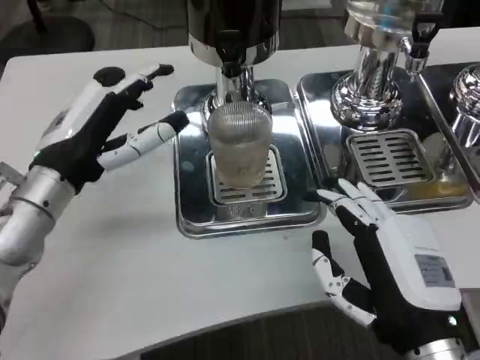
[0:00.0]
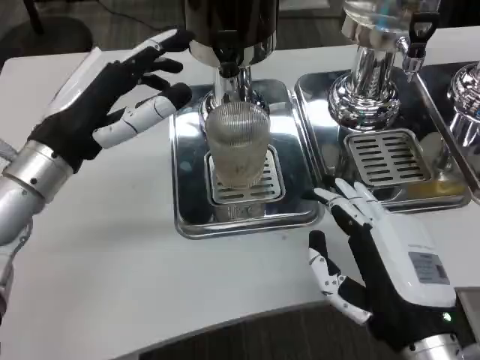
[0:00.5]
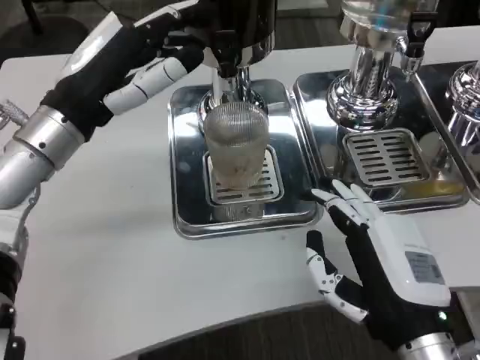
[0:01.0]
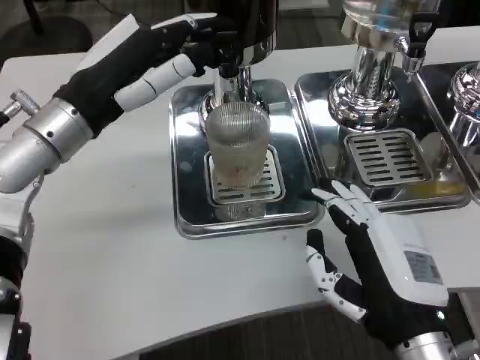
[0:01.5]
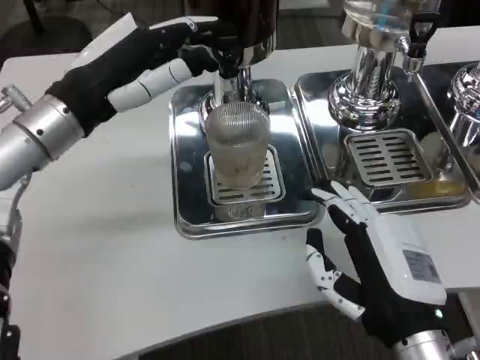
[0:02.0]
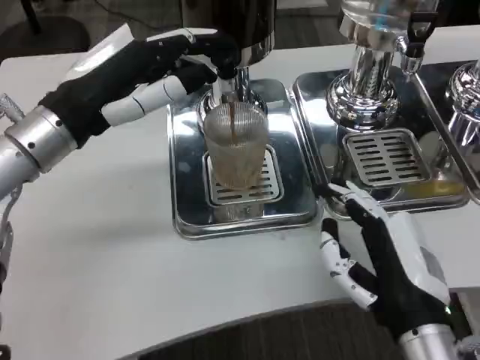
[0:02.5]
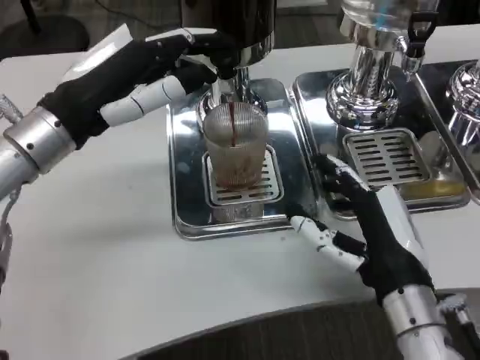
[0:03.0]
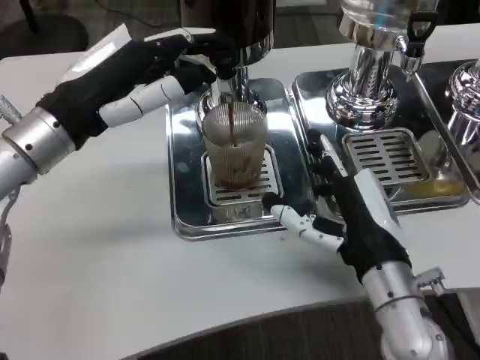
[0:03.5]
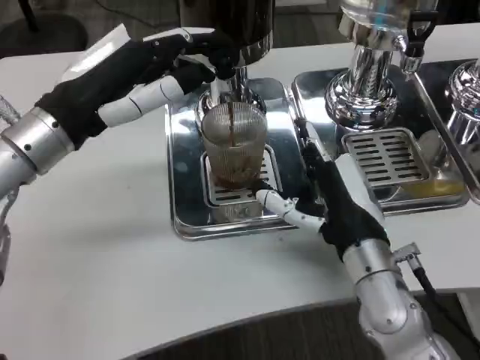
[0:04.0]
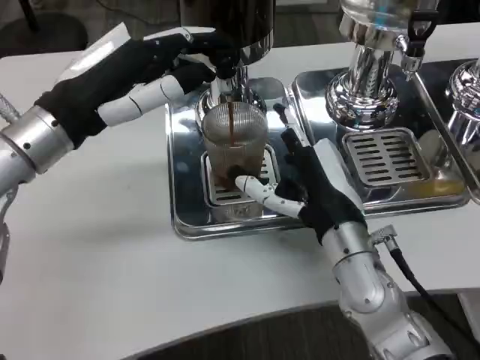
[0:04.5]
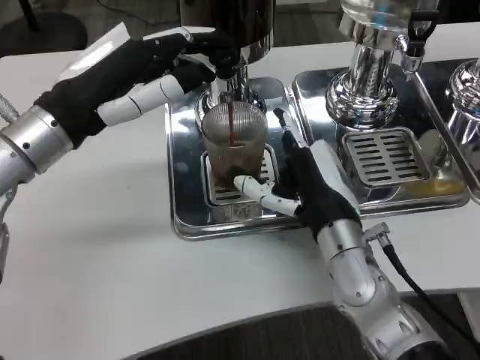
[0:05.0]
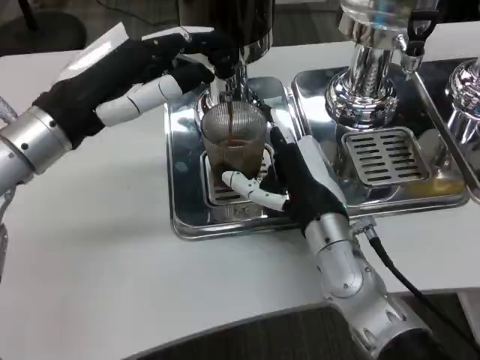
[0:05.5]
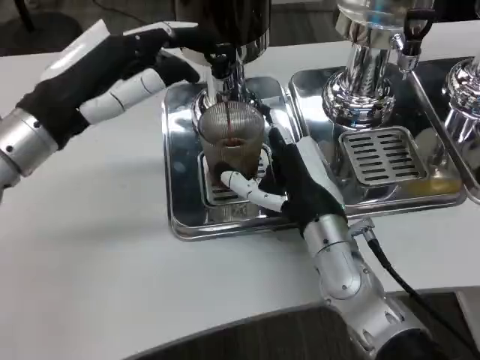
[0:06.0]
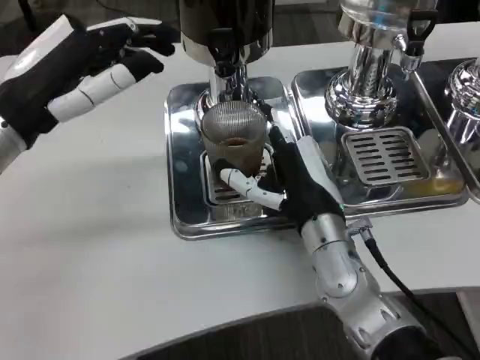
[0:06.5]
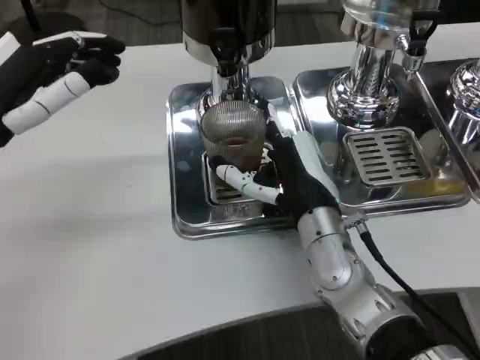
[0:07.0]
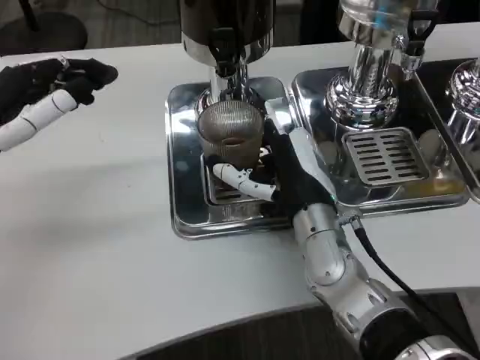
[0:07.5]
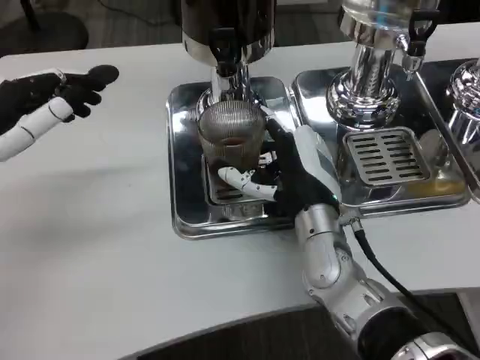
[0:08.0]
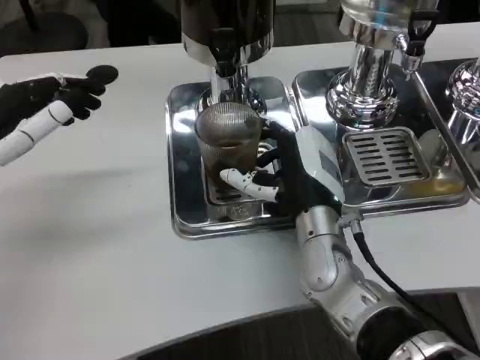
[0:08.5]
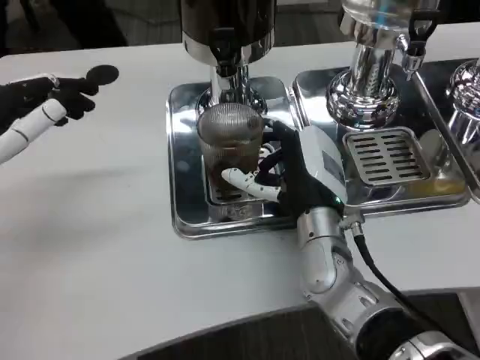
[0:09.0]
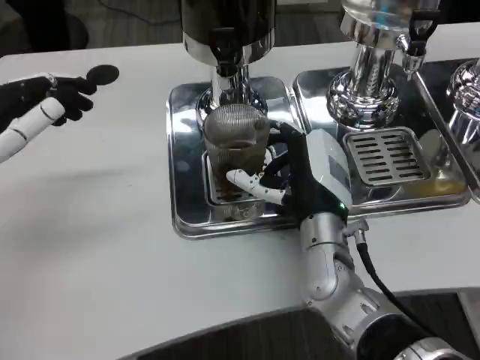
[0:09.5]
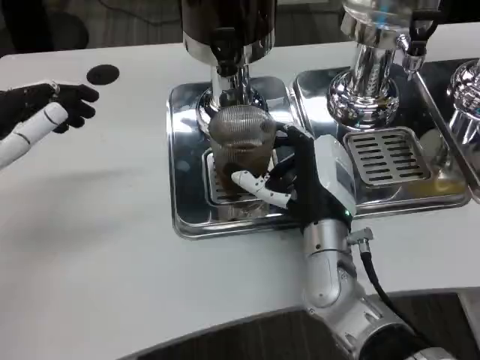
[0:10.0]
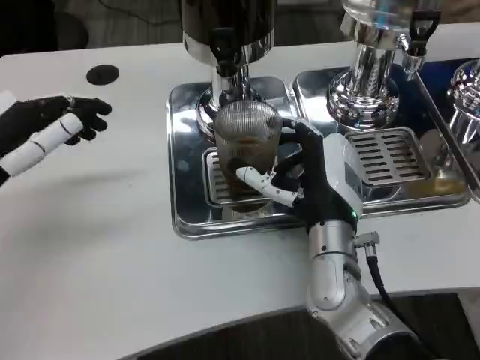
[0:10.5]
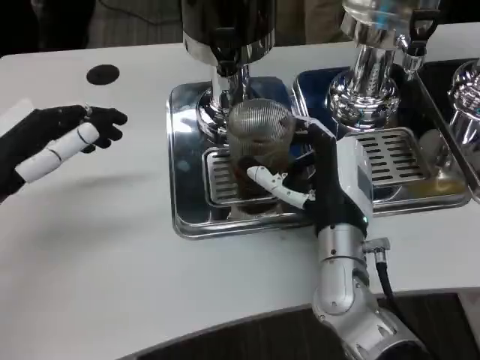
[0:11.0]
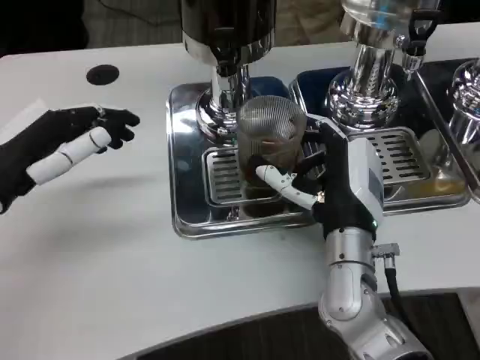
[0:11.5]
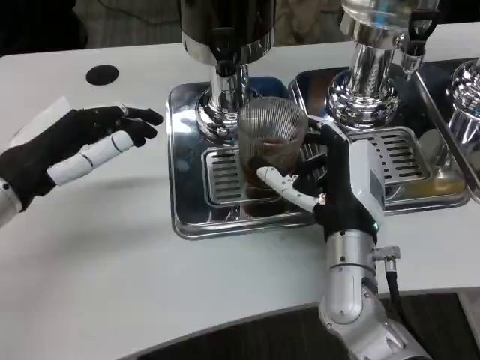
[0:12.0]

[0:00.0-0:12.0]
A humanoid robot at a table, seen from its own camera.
Task of the whole recording: Grasp the cup under the faucet to collect the drink, then remove the cup.
0:00.0 to 0:02.0: The left hand goes roughly 5 cm upward.
0:02.0 to 0:04.0: The right hand travels forward by some 10 cm.
0:06.0 to 0:08.0: The left hand heads to the left, covering approximately 5 cm.
0:08.0 to 0:10.0: The hands move only a little.

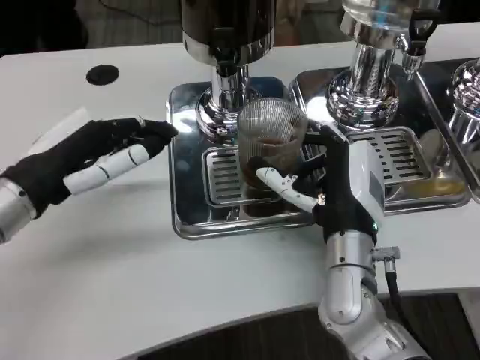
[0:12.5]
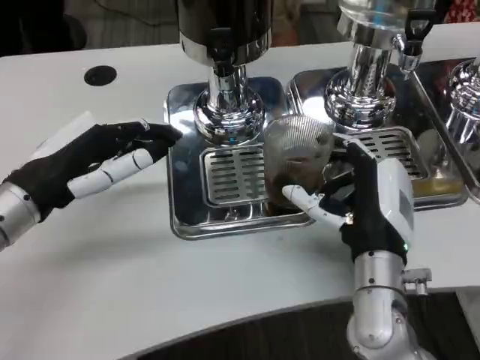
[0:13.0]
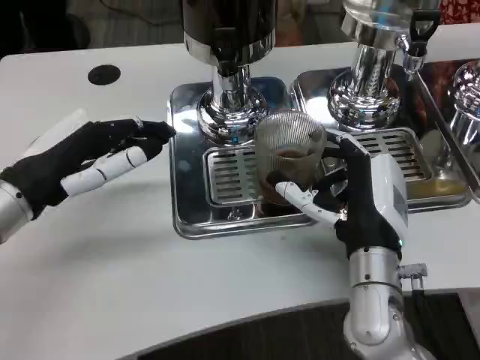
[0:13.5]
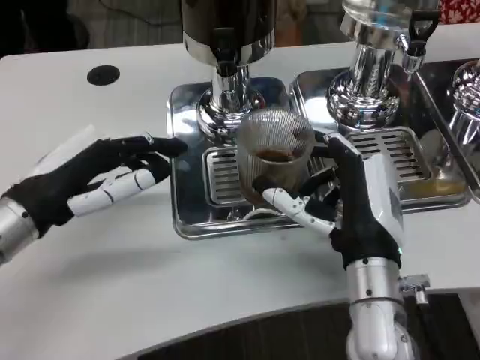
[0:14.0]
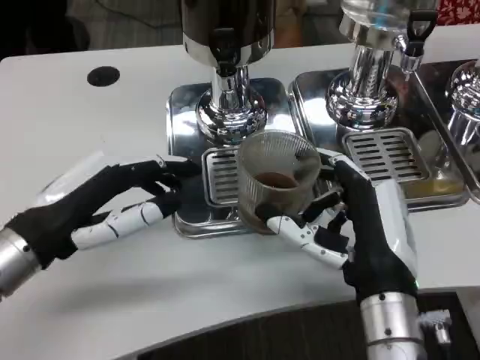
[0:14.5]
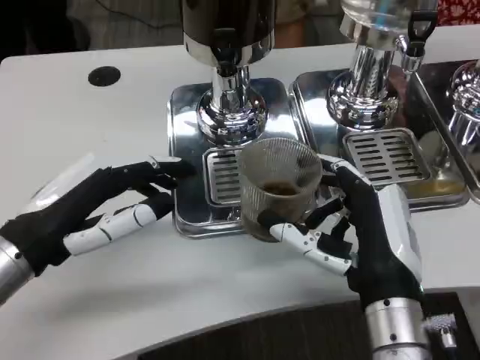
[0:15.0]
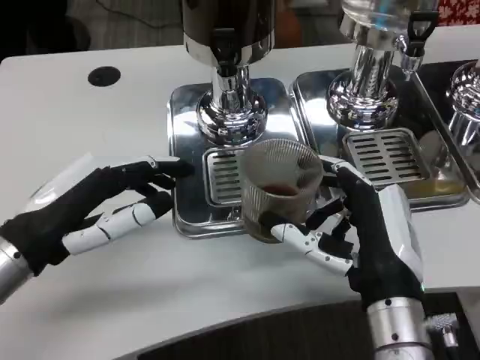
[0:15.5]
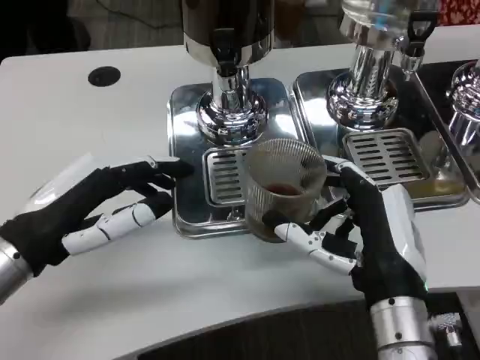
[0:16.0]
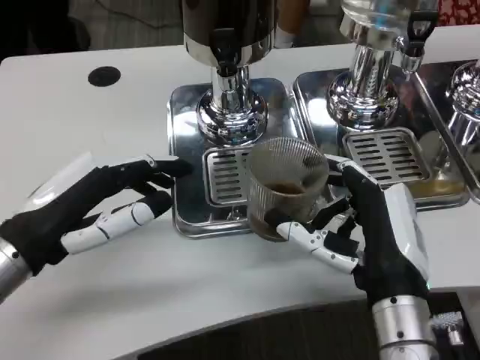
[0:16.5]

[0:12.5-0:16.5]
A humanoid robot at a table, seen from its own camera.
Task of the whole recording: Grasp the cup under the faucet to collect the drink, then remove the cup.
0:12.5 to 0:14.5: The right hand is displaced backward by about 10 cm, while the left hand ends up approximately 5 cm from where it was.
0:14.5 to 0:16.5: Both hands stay put.

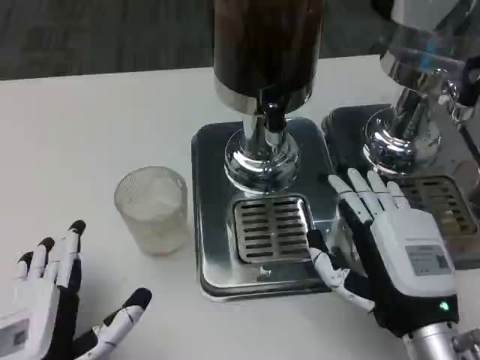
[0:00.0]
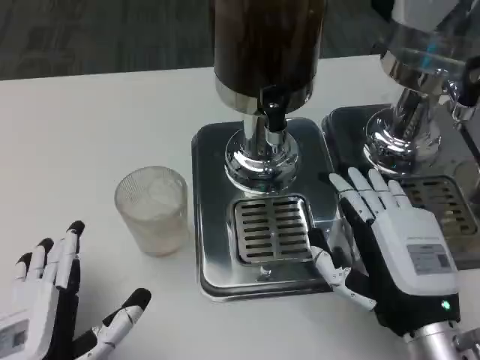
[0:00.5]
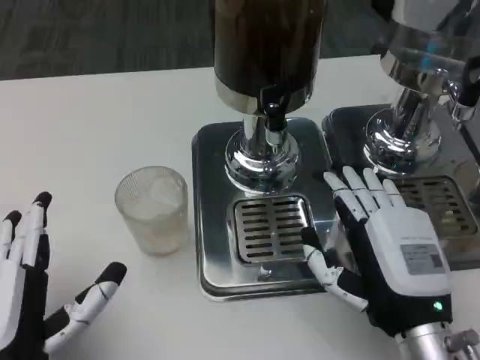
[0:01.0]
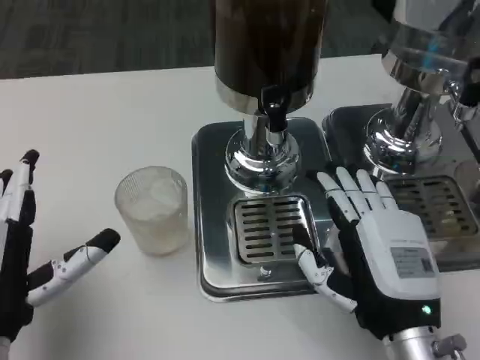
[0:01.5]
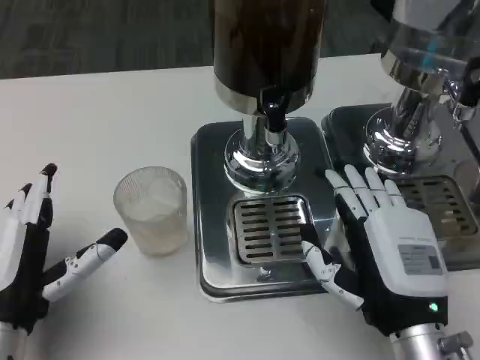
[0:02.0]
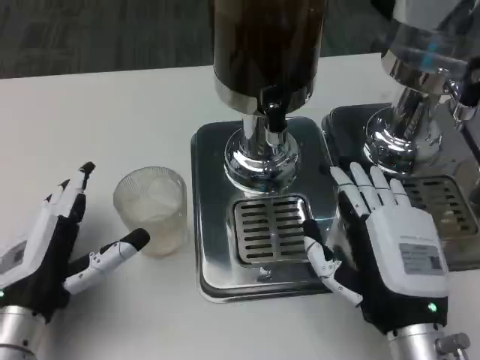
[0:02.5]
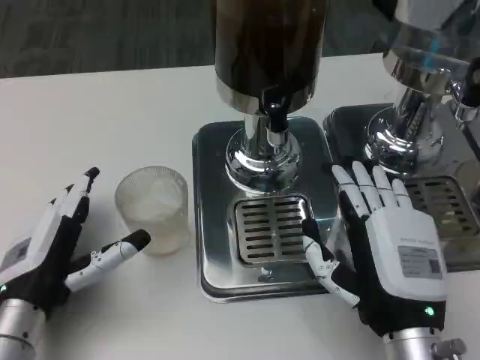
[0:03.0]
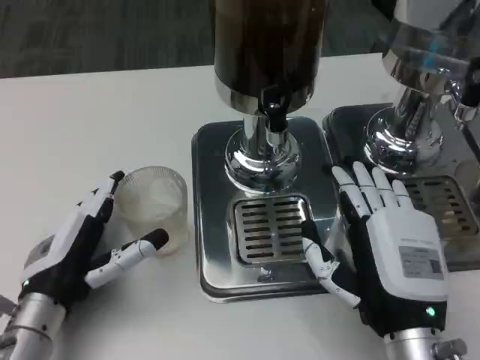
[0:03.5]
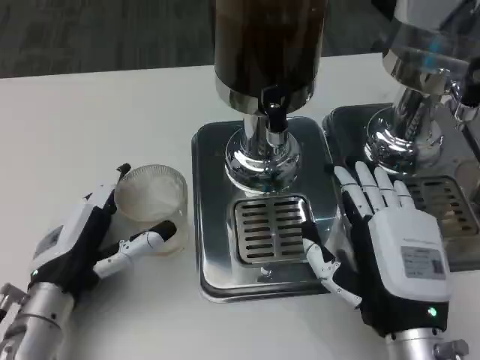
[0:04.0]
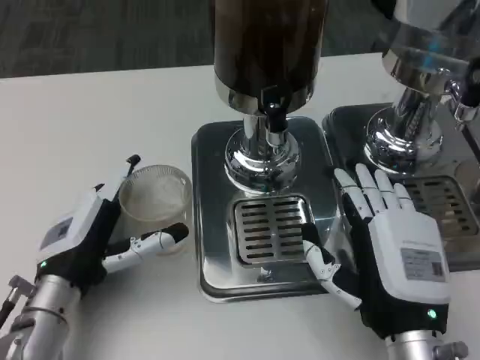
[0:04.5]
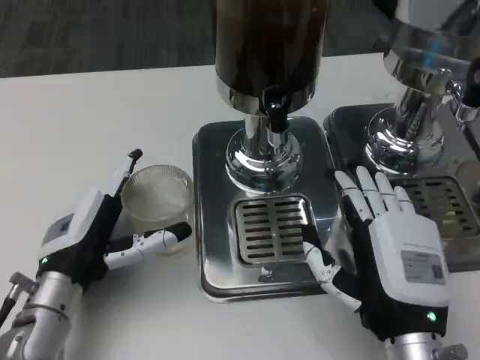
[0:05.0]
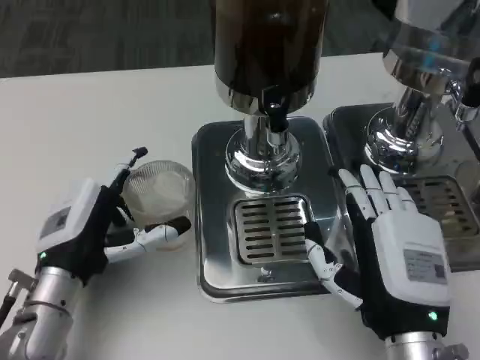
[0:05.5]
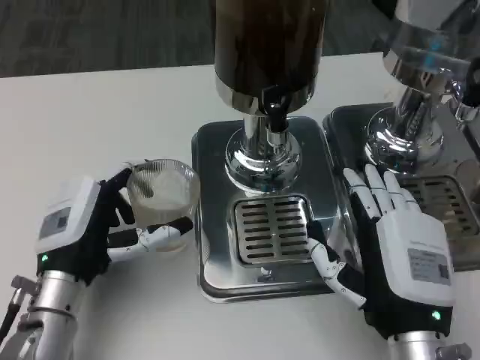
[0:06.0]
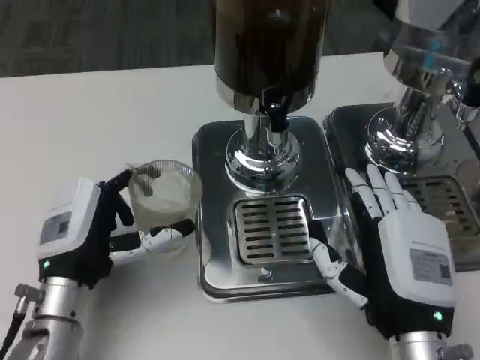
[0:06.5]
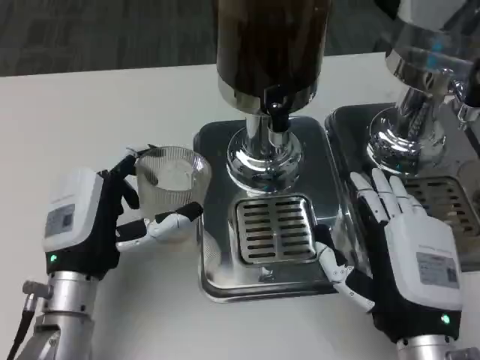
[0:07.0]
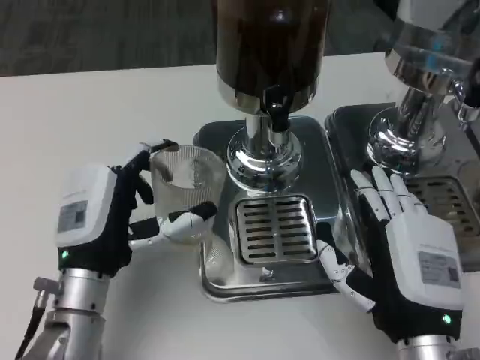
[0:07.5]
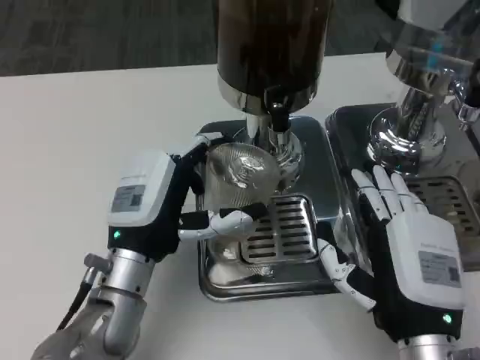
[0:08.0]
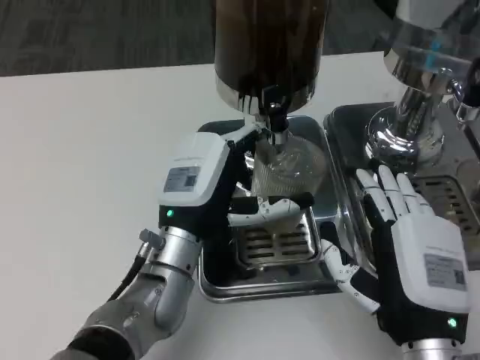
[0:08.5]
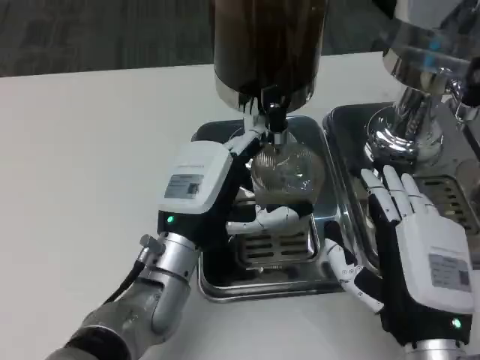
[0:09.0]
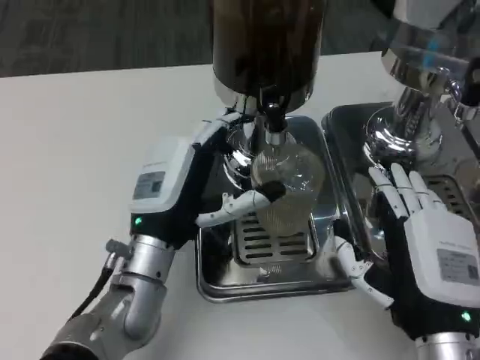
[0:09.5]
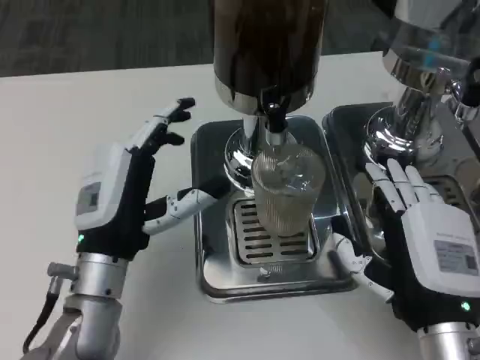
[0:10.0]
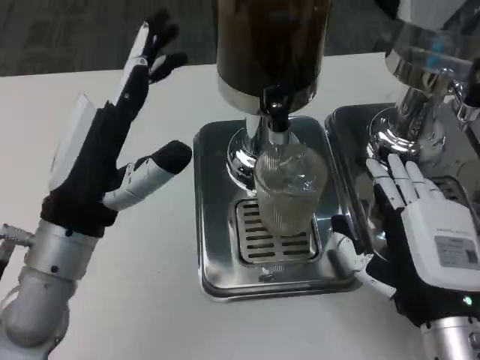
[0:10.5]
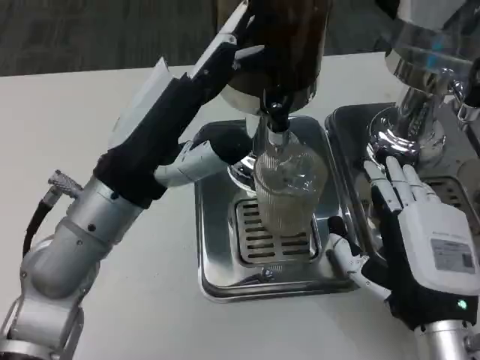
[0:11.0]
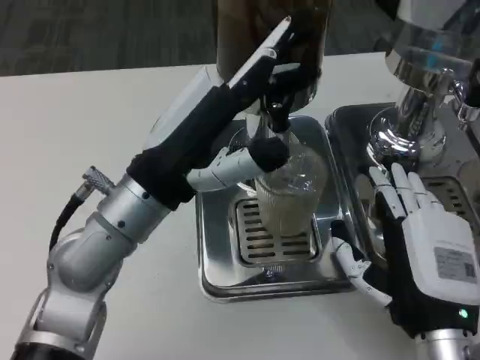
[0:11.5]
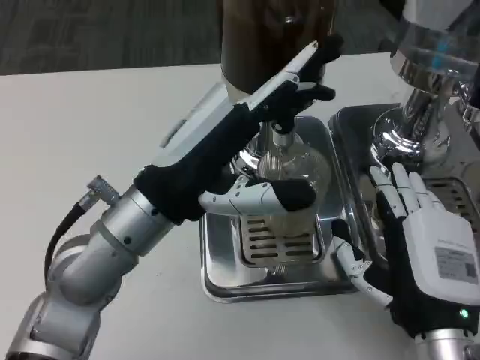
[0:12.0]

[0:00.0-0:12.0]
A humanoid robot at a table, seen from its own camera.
Task of the whole recording: Grasp the cup under the faucet to collect the drink, then remove the cup.
0:00.0 to 0:02.0: The left hand goes roughly 5 cm forward.
0:02.0 to 0:04.0: The left hand ends up approximately 5 cm from where it was.
0:04.0 to 0:06.0: The hands move only a little.
0:06.0 to 0:08.0: The left hand travels to the right by approximately 5 cm.
0:10.0 to 0:12.0: The left hand goes about 10 cm upward.
